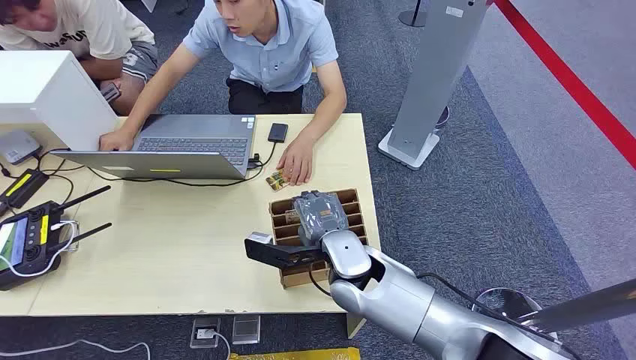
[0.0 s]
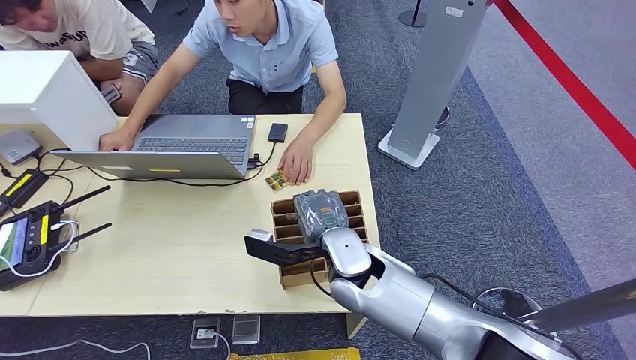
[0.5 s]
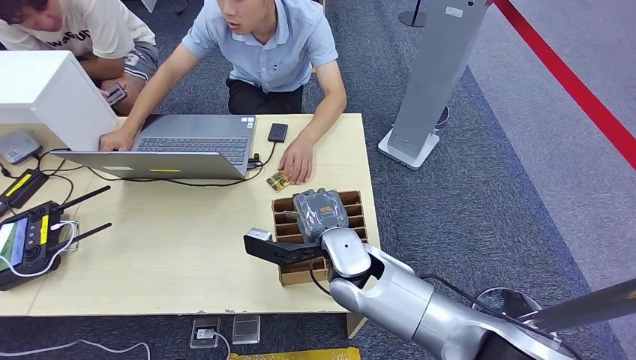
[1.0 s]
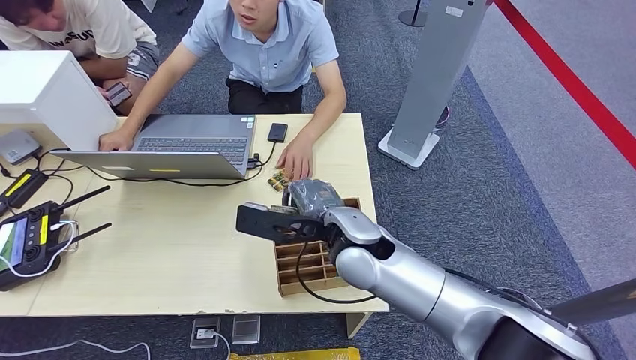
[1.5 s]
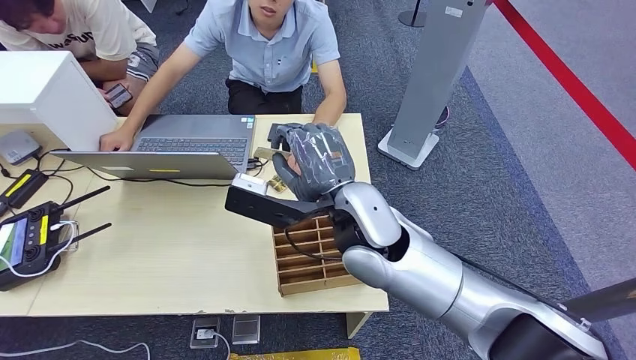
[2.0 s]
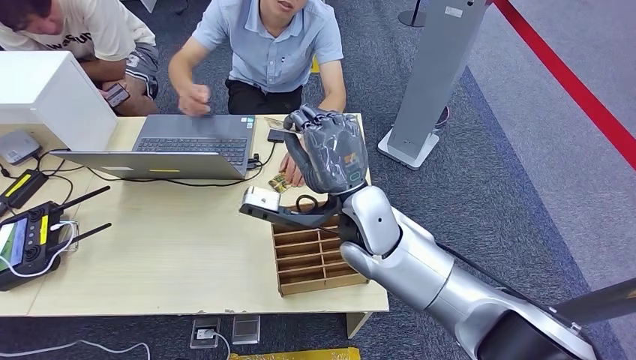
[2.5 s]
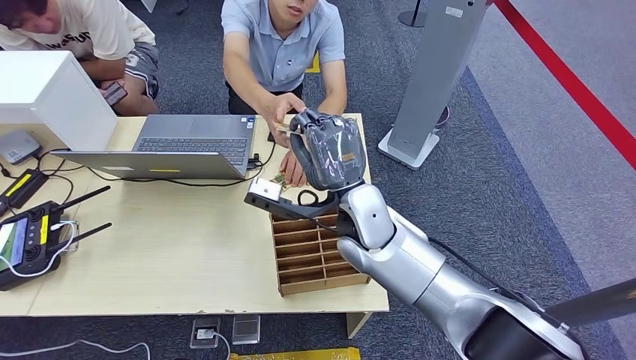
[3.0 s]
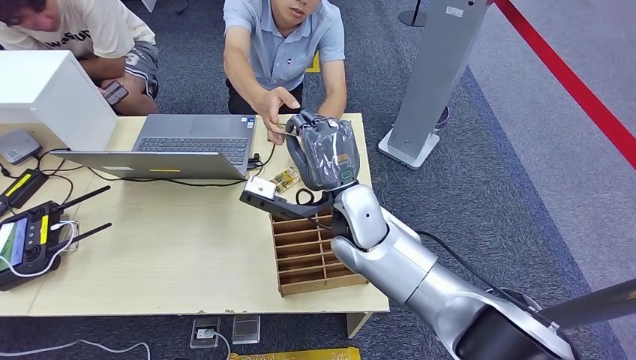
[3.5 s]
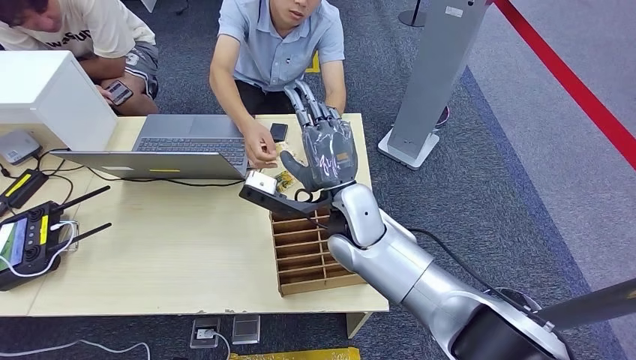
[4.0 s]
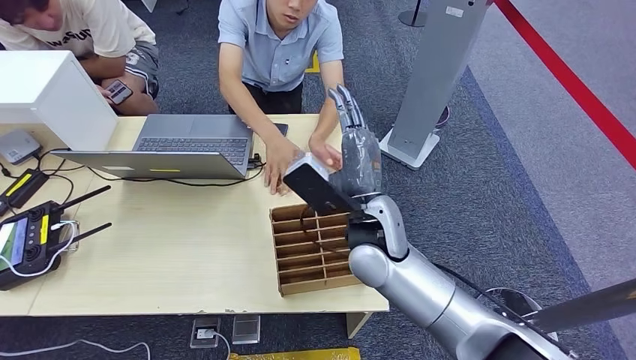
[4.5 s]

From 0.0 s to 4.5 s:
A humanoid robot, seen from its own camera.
Step, from 0.0 s to 1.5 s: Pick up the key card from the card box.
Step, from 2.5 s to 4.5 s: Hand the key card to the target.
From 2.0 s to 4.5 s: The right hand moves downward, roughly 5 cm.
